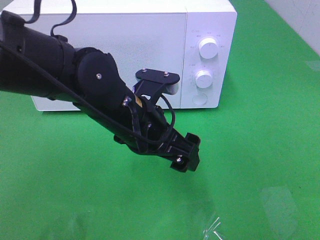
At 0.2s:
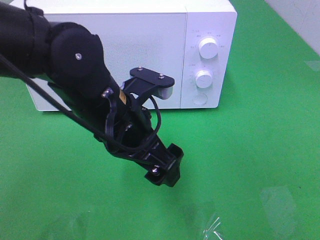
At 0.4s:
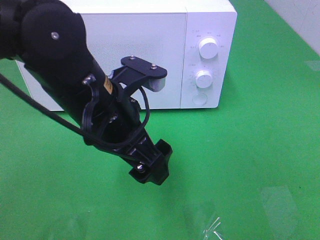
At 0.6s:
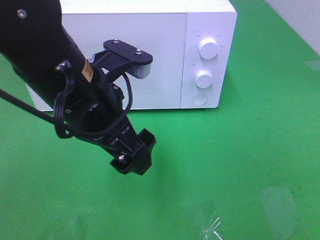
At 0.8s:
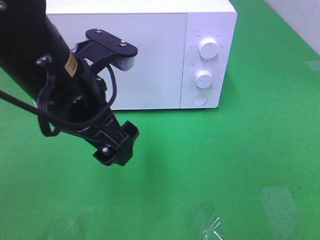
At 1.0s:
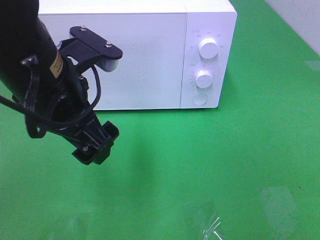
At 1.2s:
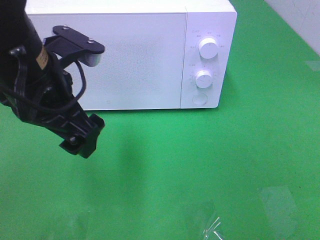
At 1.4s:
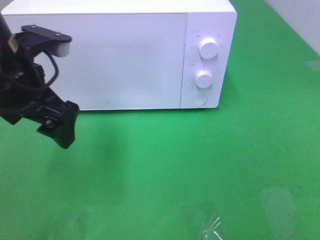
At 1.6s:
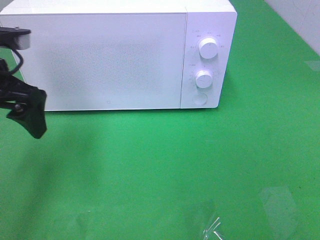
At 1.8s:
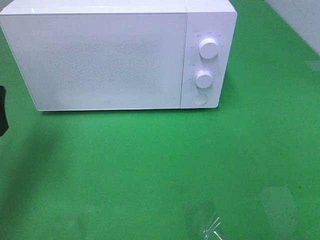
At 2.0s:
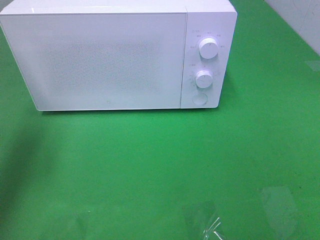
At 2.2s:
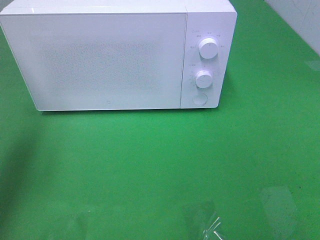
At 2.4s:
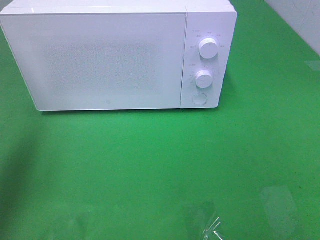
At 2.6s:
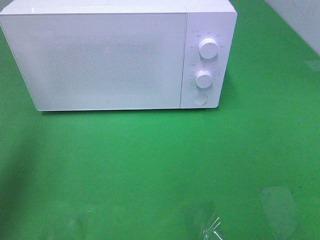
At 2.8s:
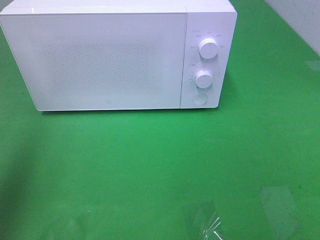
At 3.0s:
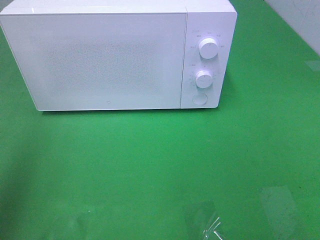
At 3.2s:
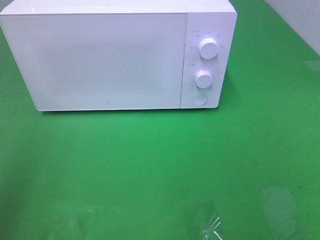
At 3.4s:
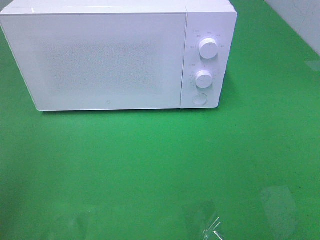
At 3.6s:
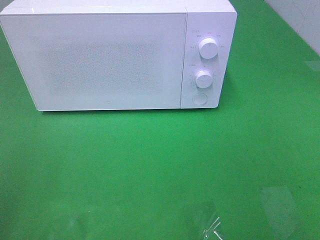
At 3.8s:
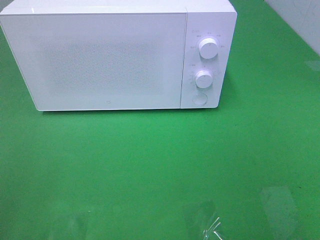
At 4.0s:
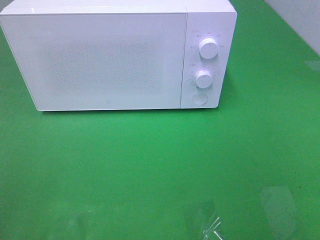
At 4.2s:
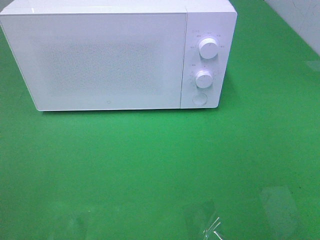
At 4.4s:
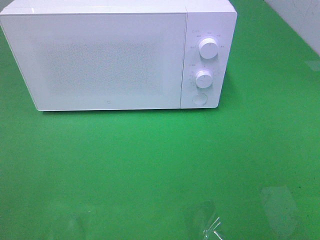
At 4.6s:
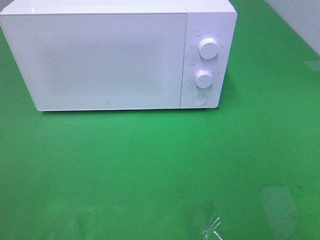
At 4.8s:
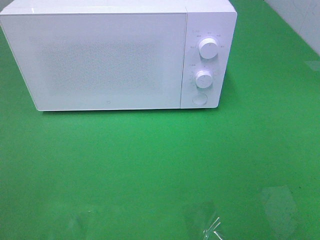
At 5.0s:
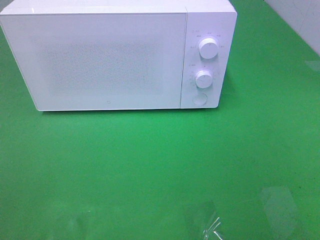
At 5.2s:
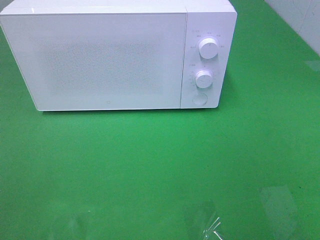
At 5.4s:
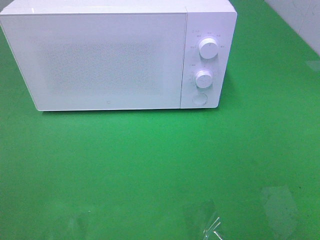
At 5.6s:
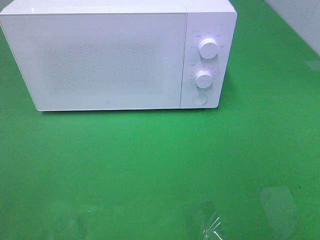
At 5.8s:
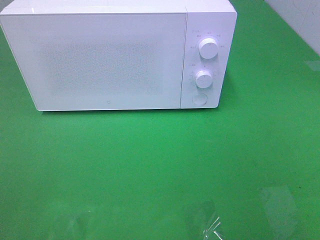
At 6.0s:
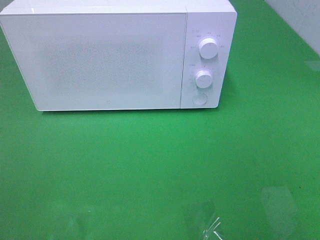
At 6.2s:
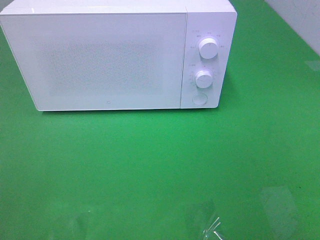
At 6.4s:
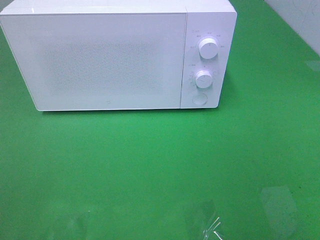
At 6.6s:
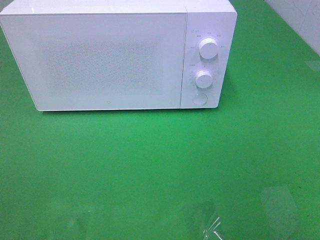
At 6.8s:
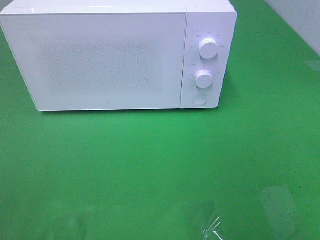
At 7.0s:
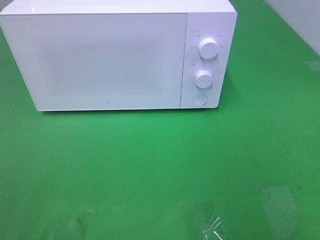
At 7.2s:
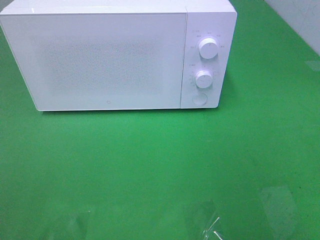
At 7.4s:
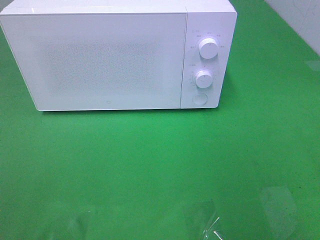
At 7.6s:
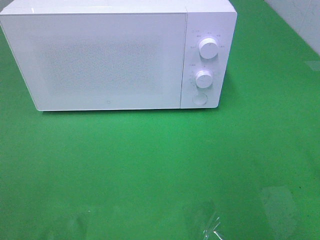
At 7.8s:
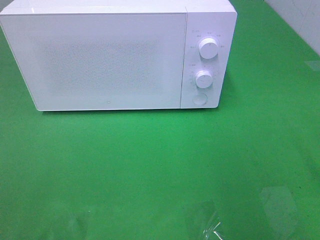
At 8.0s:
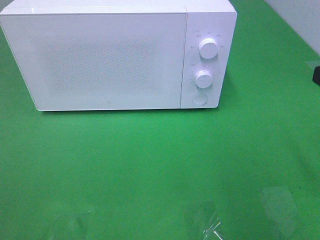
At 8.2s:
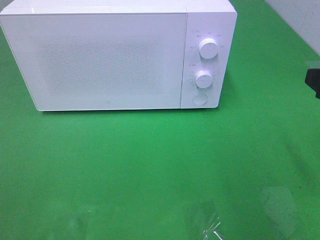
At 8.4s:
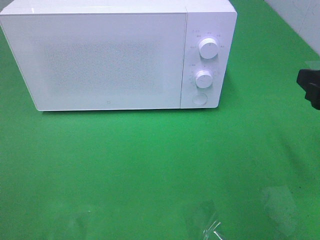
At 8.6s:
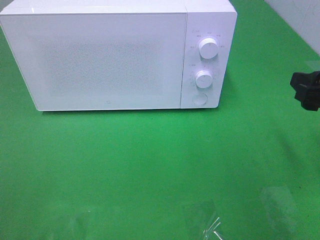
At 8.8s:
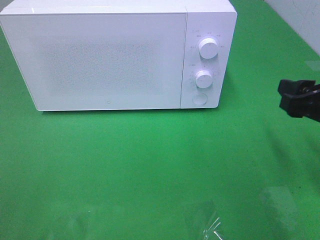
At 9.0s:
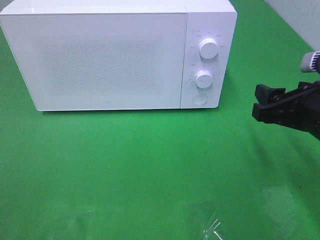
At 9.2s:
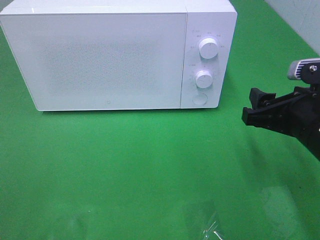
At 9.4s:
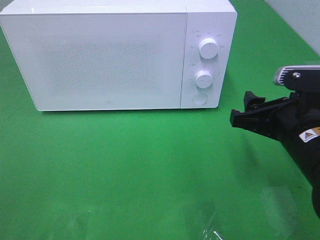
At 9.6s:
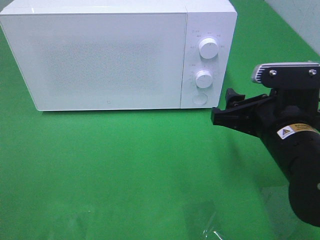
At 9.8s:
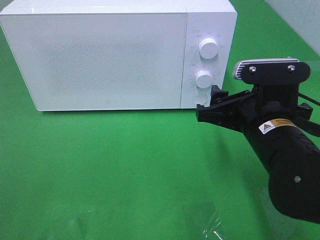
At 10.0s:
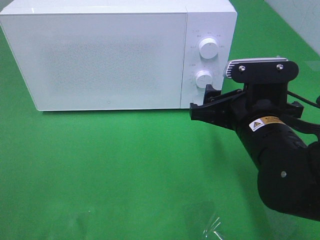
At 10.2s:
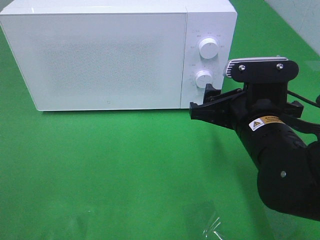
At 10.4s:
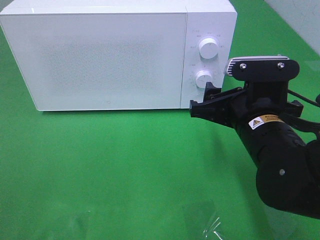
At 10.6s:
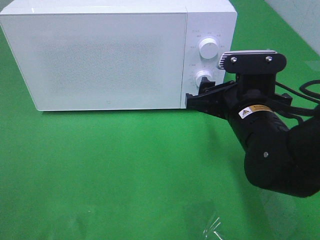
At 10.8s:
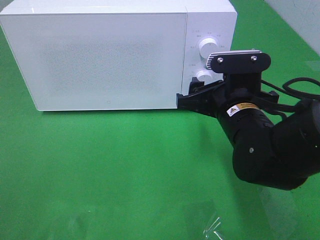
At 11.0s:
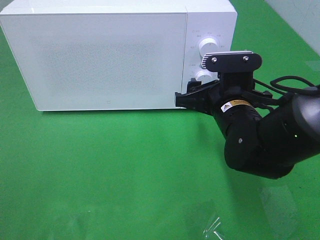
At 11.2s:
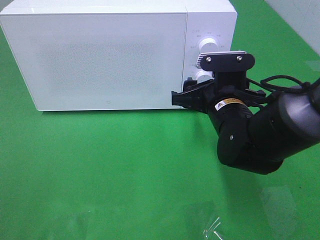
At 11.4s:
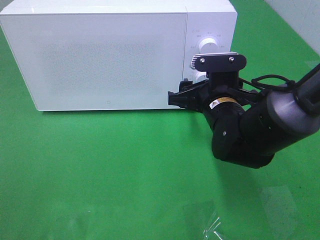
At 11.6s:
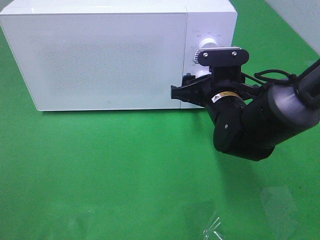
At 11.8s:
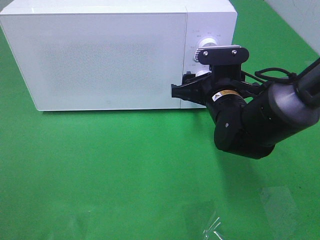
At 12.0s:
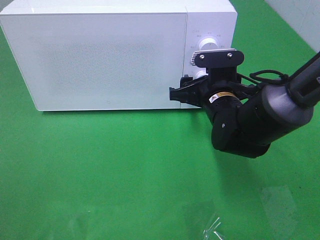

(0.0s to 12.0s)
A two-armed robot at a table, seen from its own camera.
Task of the whole recording: Heat the burger.
0.0s - 1.6s: The left gripper heads to the left and upward, covering some 20 cm.
1.6s - 3.0s: The left gripper heads upward, backward and to the left, covering roughly 25 cm.
3.0s - 4.4s: The left gripper moves backward and downward, roughly 20 cm.
4.4s - 6.0s: Both grippers stay about where they are.
7.6s - 9.0s: The right gripper heads downward, forward and to the left, covering approximately 15 cm.
9.0s - 10.4s: The right gripper moves to the left, roughly 10 cm.
10.4s - 12.0s: The right gripper moves forward, roughly 10 cm.

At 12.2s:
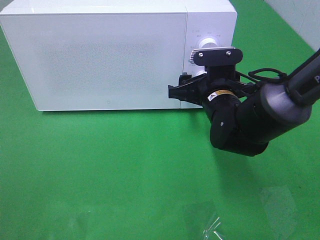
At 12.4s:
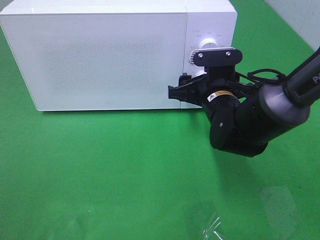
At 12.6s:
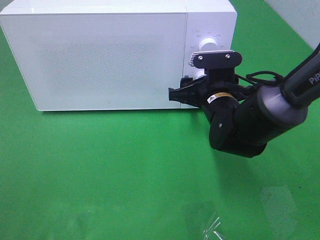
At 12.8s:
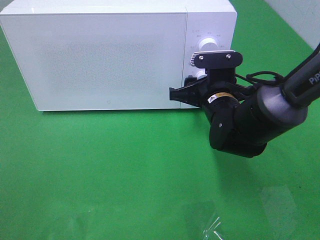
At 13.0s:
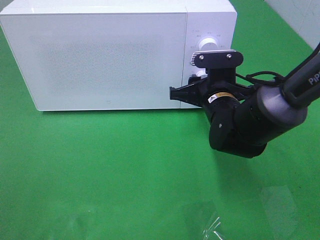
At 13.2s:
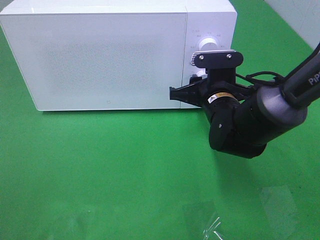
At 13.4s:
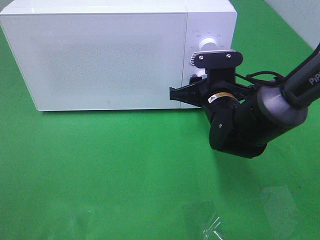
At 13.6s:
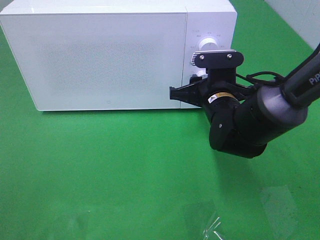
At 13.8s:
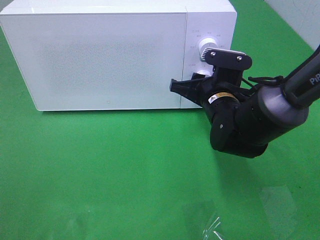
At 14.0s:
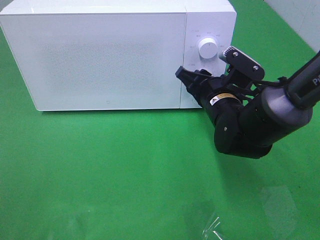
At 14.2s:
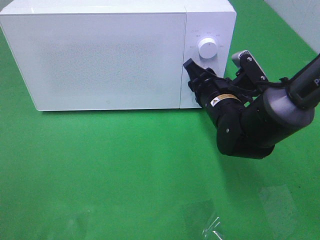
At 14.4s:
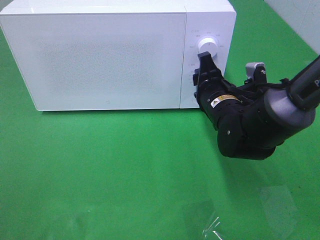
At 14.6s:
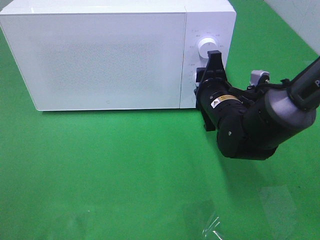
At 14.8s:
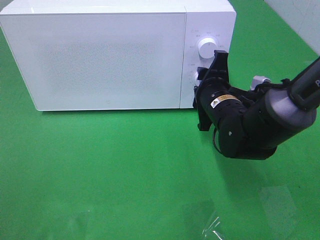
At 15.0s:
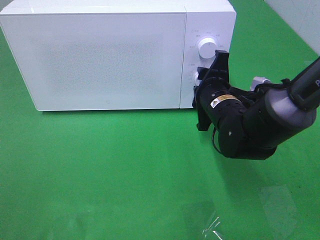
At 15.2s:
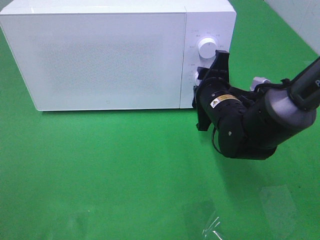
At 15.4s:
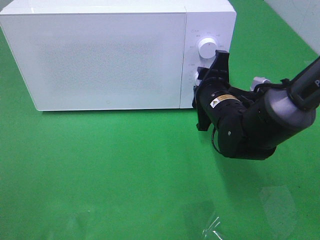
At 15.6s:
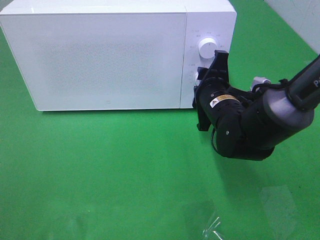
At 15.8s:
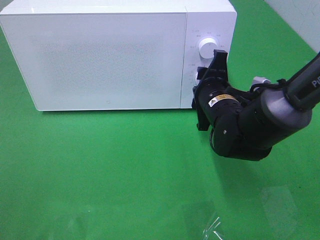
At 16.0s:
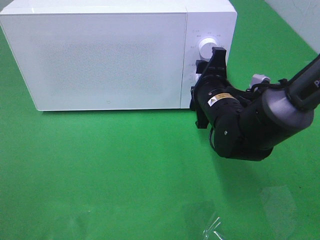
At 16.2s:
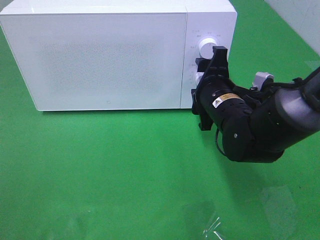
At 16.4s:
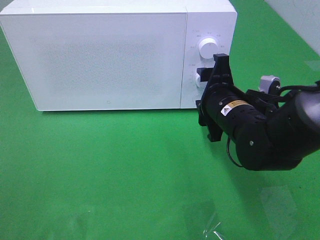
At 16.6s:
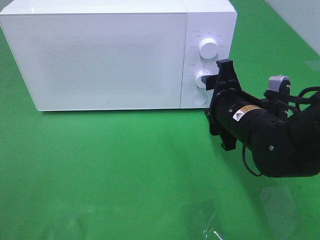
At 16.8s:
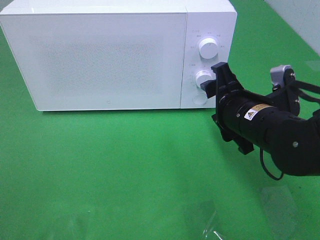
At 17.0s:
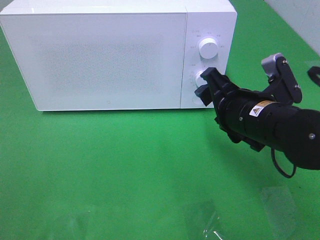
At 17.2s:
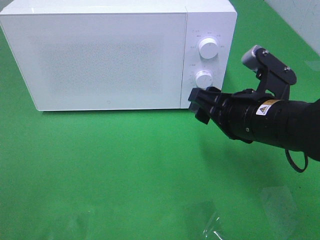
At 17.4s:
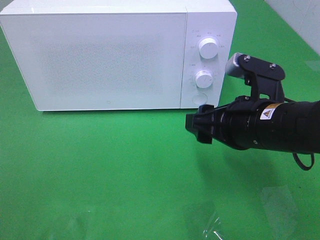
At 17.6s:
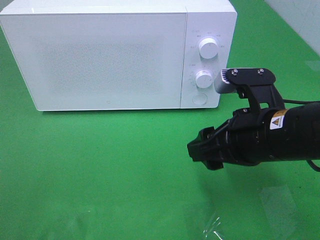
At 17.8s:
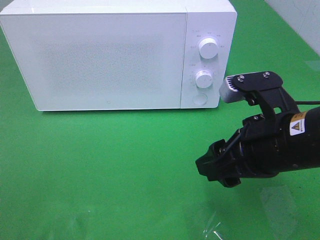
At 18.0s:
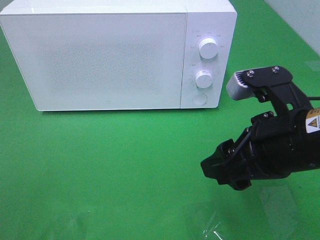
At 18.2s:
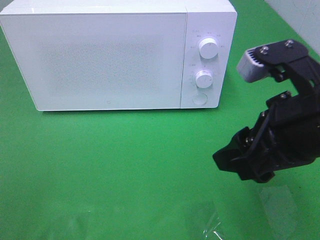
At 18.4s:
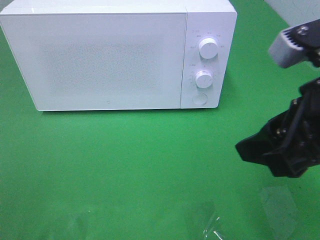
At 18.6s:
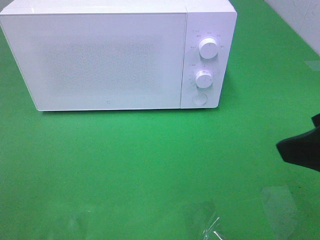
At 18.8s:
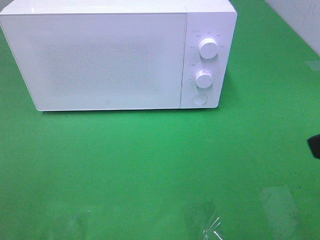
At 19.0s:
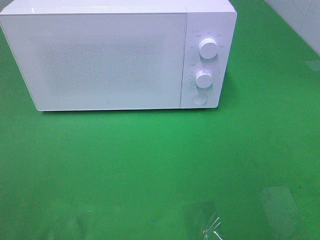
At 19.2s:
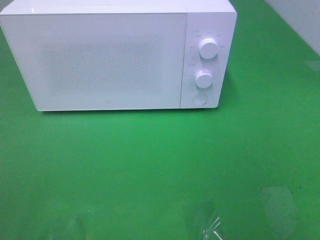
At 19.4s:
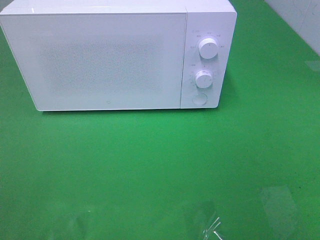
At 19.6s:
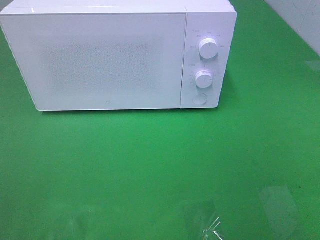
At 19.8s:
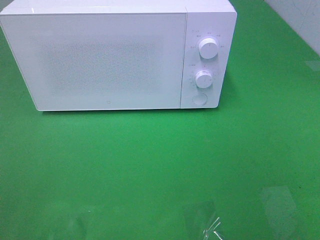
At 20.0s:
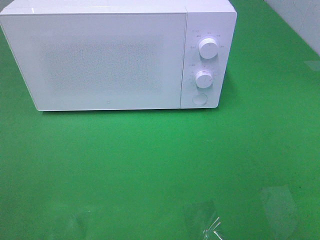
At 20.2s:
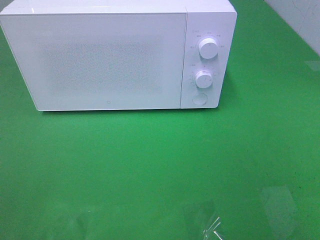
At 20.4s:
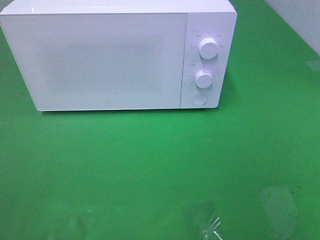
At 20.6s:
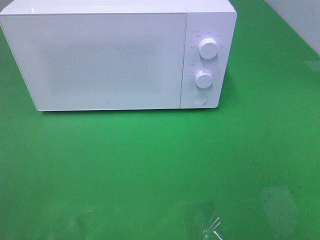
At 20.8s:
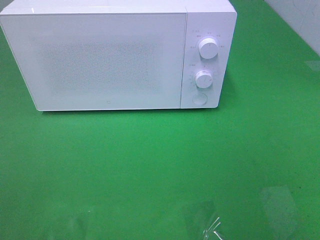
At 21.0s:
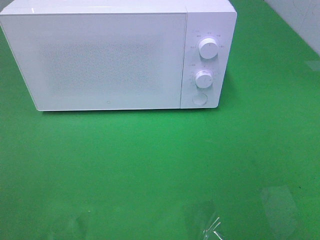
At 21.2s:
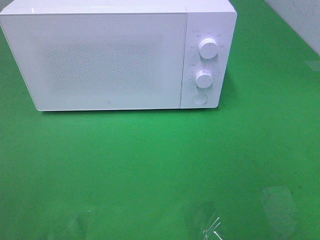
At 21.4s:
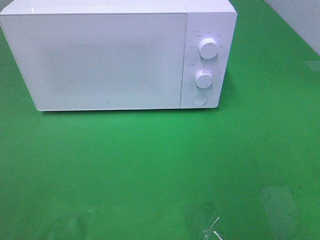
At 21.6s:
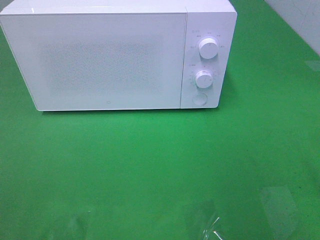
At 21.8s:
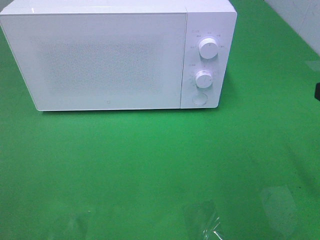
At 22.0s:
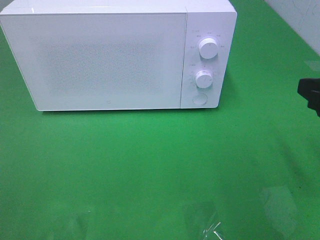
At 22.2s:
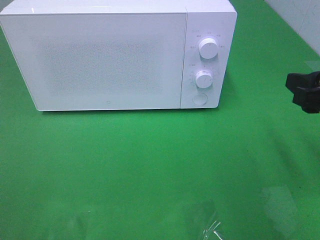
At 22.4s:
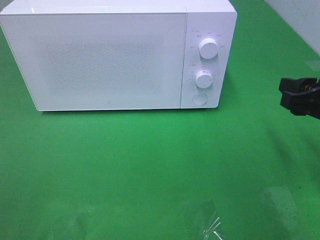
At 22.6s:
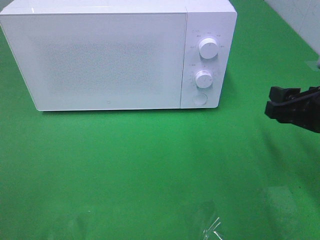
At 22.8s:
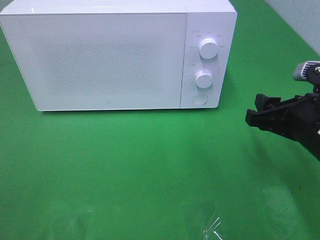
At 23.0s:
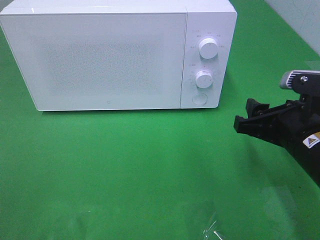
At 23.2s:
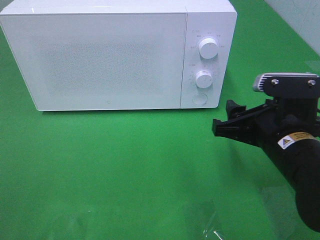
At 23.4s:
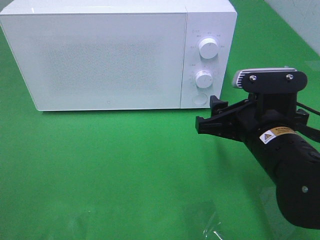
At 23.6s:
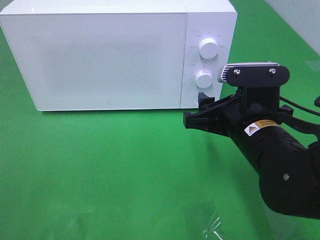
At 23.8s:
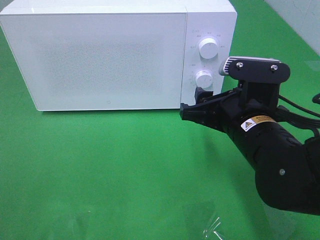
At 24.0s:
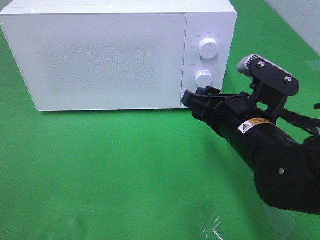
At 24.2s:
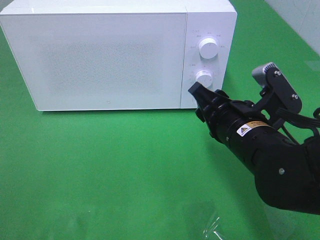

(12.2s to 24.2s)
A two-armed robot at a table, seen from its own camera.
Task of the whole recording: Heat the burger.
Step, 12.2s - 16.6s: Right hand: twist timer button.
12.2s - 13.8s: The right gripper closes up.
15.2s - 16.6s: The right gripper travels backward by roughly 5 cm.
16.6s - 18.2s: The right gripper heads upward and backward, covering roughly 15 cm.
18.2s - 19.8s: The right gripper shifts some 20 cm backward and to the right.
21.2s - 22.6s: The right gripper goes approximately 20 cm downward and forward.
22.6s - 24.2s: The right gripper travels to the left by some 10 cm.
